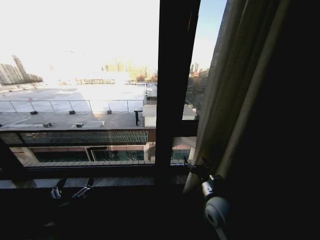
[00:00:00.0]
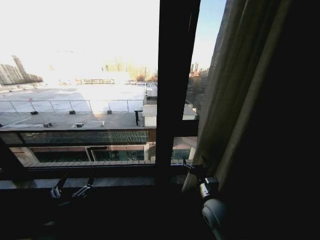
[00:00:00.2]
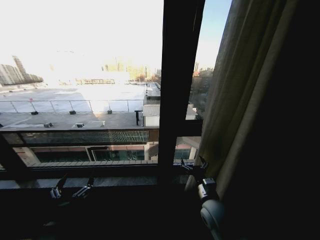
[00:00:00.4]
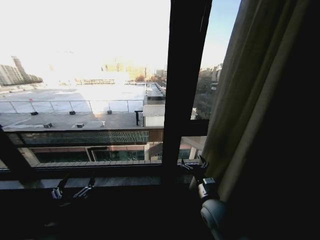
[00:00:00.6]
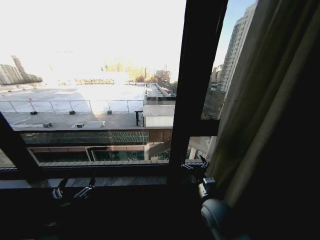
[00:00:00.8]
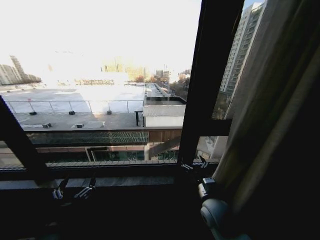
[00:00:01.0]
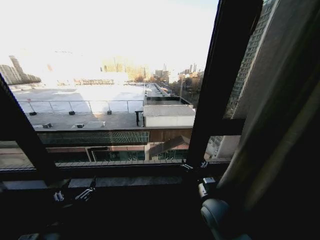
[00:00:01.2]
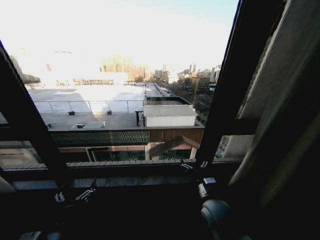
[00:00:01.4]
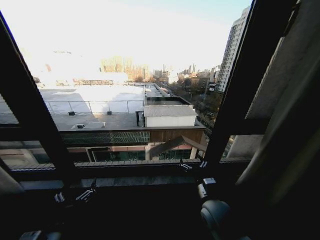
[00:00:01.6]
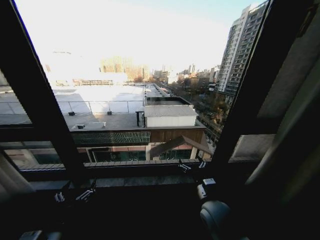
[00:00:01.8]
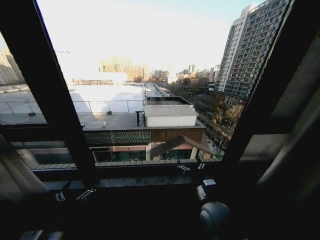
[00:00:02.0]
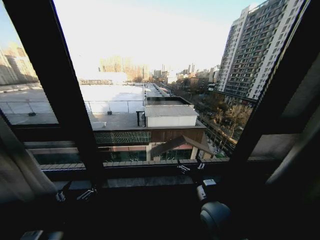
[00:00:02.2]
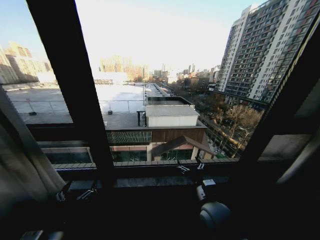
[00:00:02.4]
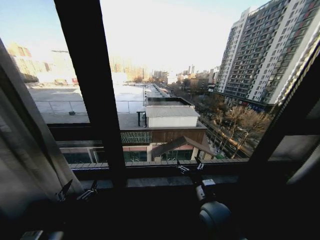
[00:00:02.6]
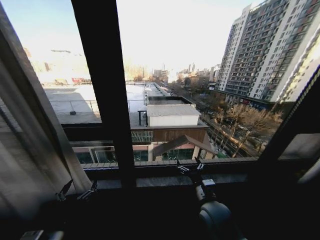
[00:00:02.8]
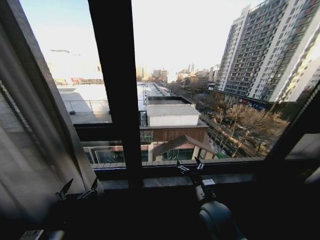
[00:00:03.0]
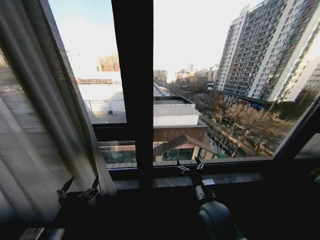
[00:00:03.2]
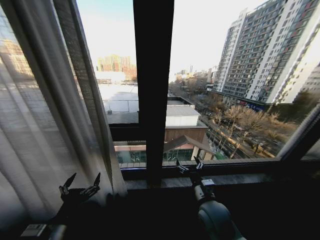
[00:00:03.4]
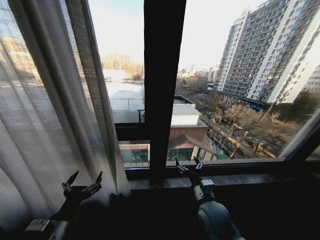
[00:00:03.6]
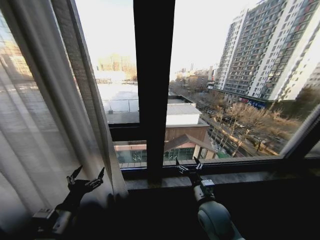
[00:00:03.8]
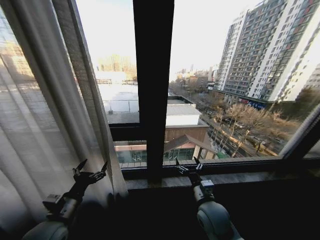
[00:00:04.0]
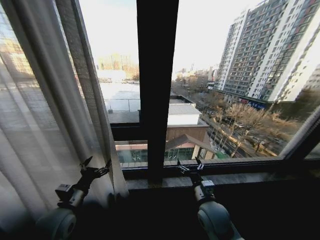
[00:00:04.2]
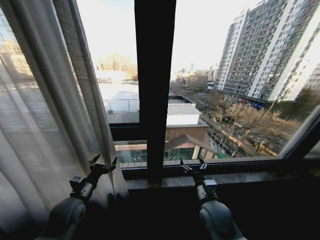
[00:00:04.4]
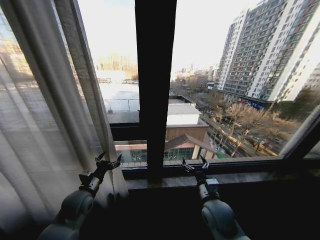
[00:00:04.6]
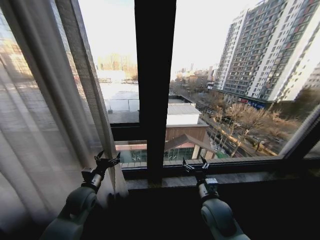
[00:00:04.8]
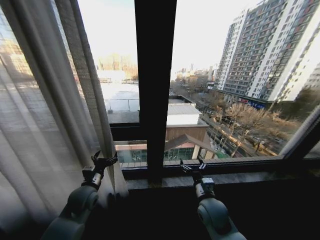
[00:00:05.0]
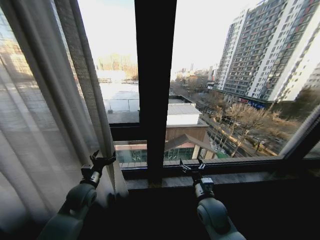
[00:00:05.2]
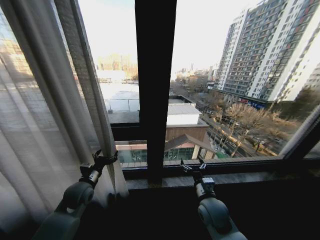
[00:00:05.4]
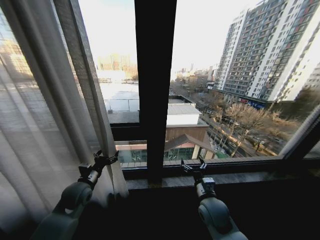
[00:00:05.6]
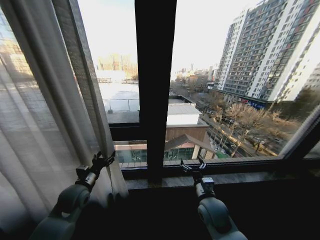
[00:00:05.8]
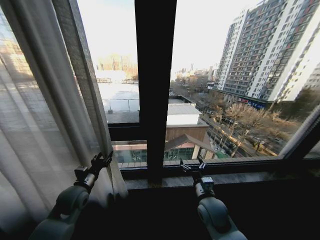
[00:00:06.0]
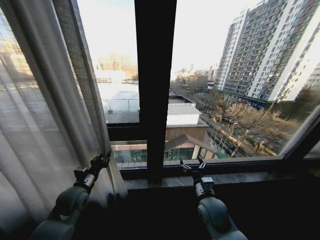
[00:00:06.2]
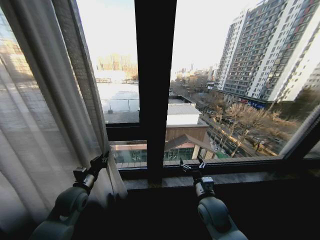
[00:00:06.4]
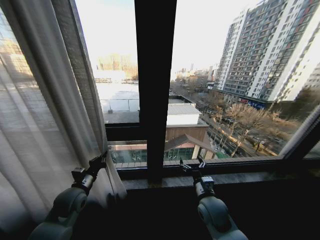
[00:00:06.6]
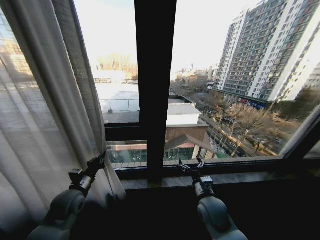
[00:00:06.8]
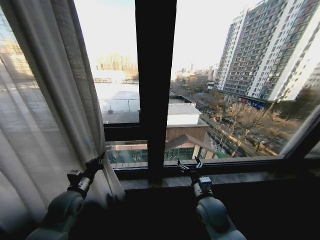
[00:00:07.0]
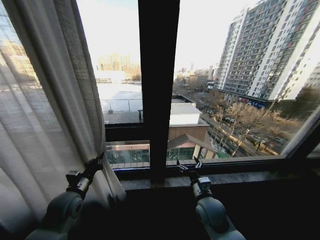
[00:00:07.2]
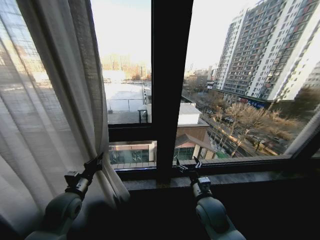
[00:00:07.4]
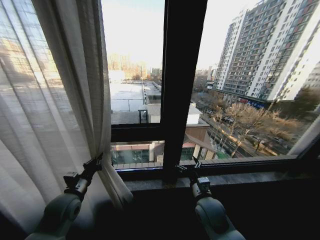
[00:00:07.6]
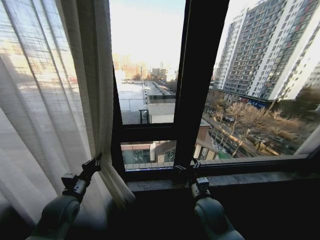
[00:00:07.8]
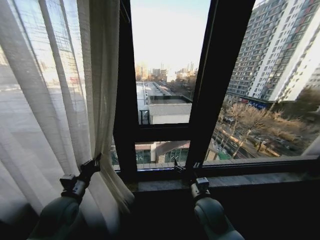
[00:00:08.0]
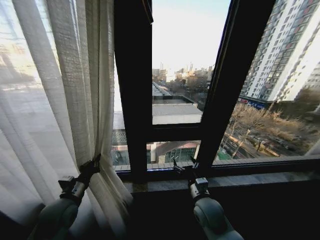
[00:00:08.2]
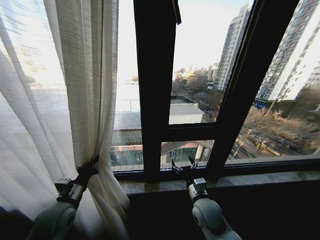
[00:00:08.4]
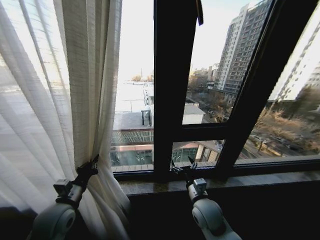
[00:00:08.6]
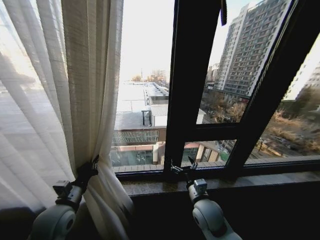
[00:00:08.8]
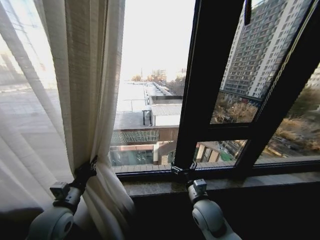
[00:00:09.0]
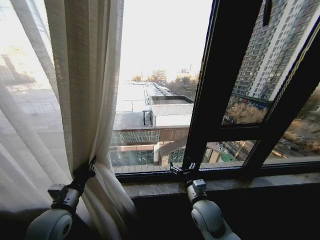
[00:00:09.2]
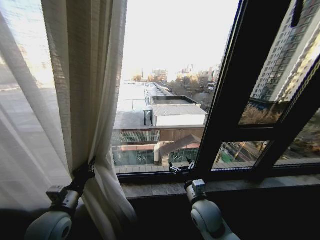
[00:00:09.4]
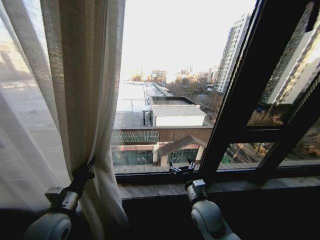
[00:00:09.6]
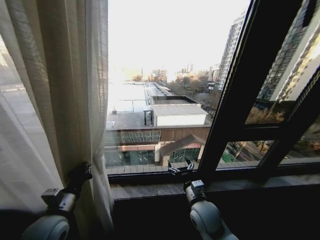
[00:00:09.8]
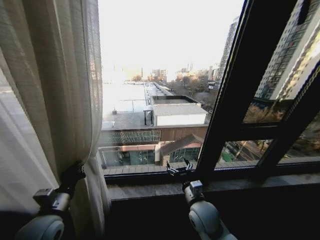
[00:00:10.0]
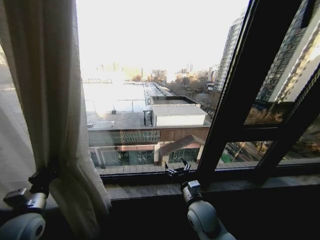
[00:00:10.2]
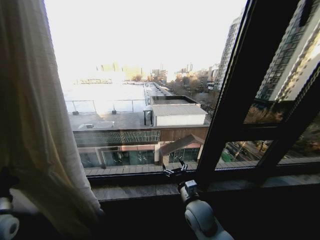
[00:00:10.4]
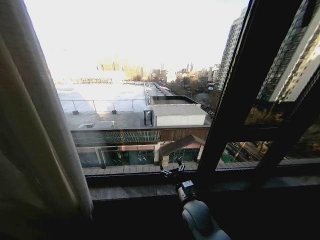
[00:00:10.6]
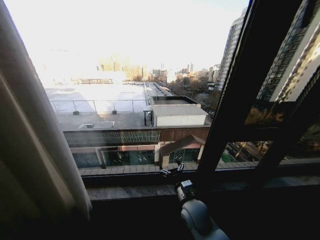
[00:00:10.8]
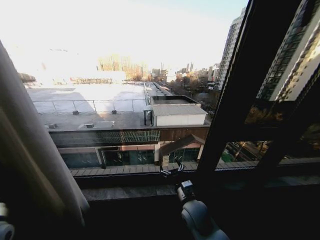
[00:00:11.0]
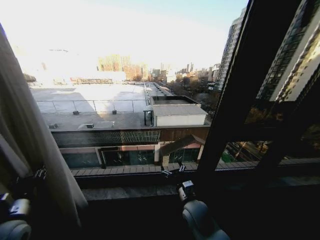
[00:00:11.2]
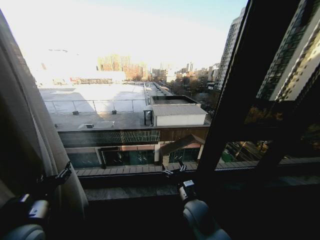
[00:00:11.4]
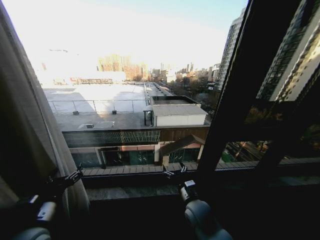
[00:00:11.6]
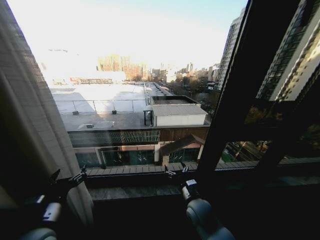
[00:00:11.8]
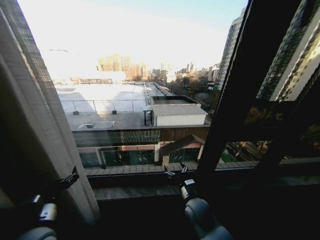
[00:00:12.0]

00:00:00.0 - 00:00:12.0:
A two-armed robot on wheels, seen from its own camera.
Task of the whole recording: Open the curtains by pulling them apart, changing their state from closed to fully open.
00:00:03.0 - 00:00:04.4: The left gripper is displaced forward by roughly 15 cm.
00:00:04.4 - 00:00:06.0: The left gripper closes its fingers.
00:00:06.0 - 00:00:07.6: The left gripper closes its fingers.
00:00:07.6 - 00:00:09.0: The left gripper changes place by some 5 cm.
00:00:09.0 - 00:00:10.4: The left gripper moves to the left, approximately 15 cm.
00:00:10.4 - 00:00:12.0: The left gripper heads to the right, covering some 15 cm, and opens.

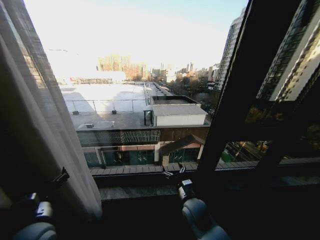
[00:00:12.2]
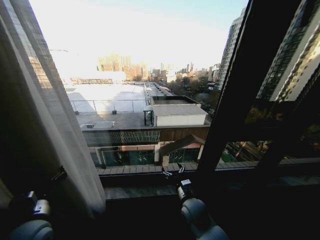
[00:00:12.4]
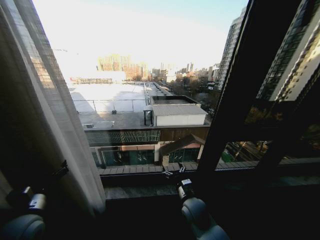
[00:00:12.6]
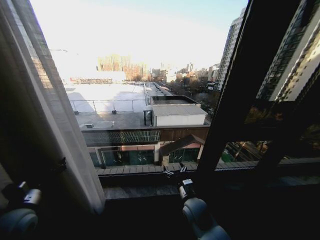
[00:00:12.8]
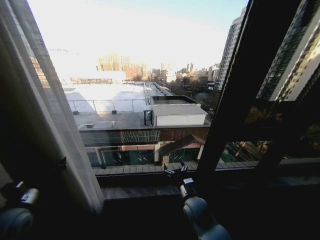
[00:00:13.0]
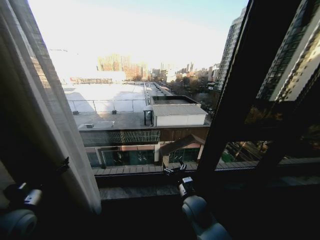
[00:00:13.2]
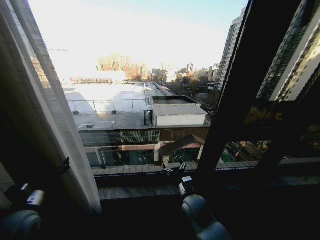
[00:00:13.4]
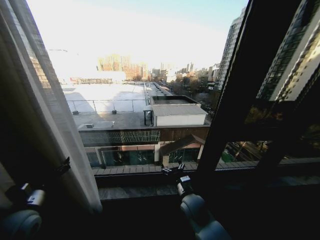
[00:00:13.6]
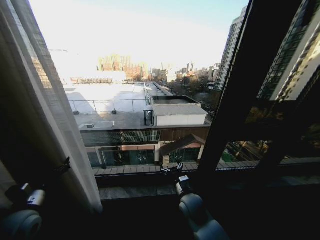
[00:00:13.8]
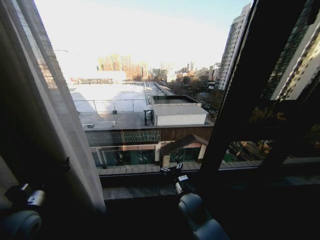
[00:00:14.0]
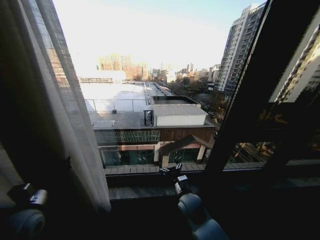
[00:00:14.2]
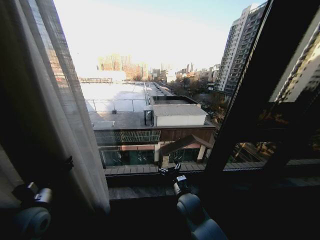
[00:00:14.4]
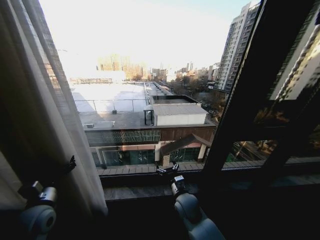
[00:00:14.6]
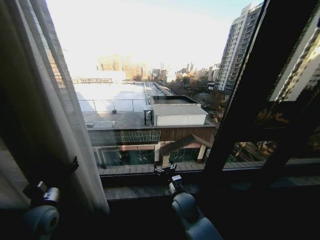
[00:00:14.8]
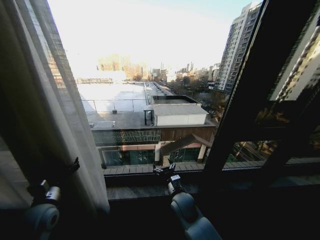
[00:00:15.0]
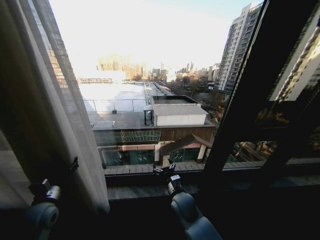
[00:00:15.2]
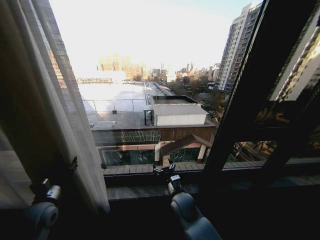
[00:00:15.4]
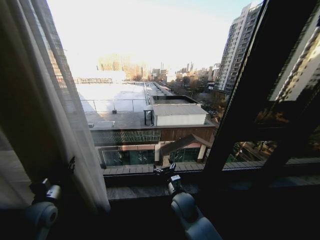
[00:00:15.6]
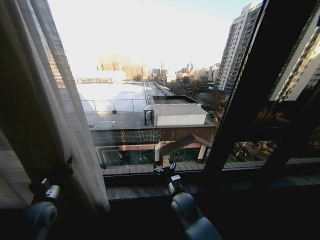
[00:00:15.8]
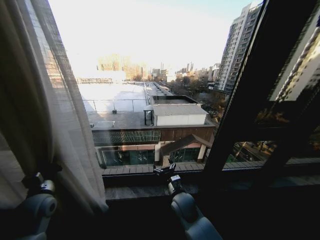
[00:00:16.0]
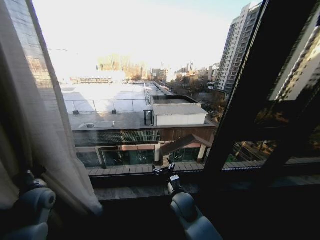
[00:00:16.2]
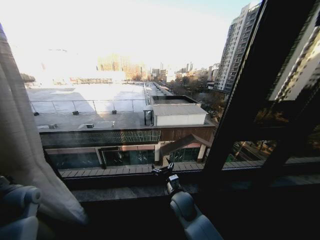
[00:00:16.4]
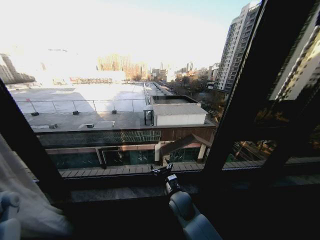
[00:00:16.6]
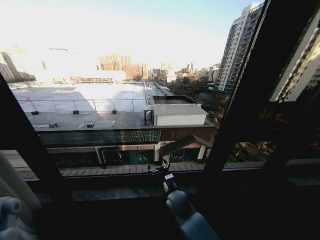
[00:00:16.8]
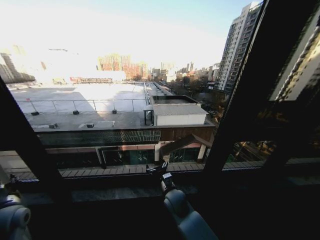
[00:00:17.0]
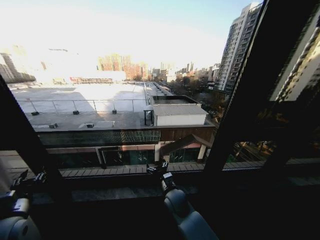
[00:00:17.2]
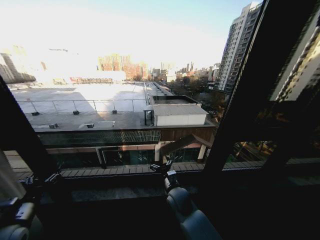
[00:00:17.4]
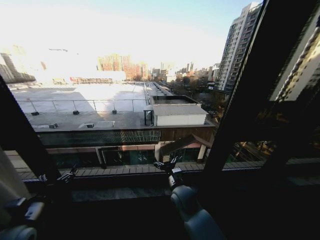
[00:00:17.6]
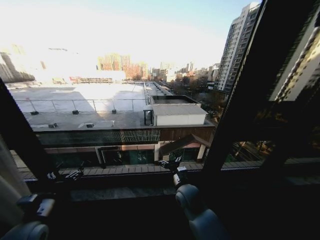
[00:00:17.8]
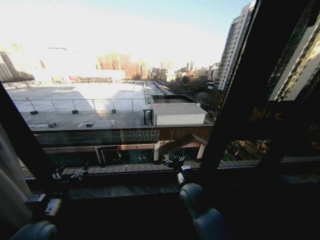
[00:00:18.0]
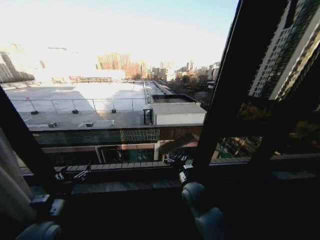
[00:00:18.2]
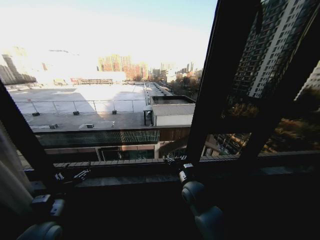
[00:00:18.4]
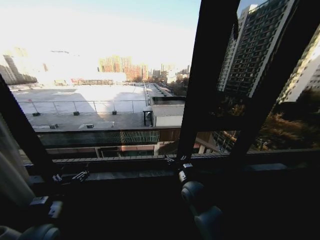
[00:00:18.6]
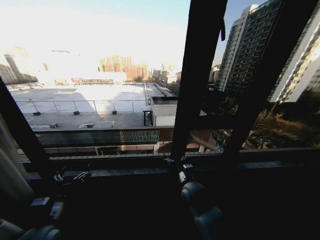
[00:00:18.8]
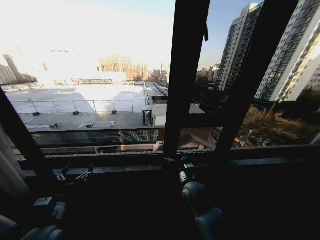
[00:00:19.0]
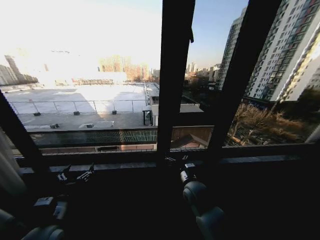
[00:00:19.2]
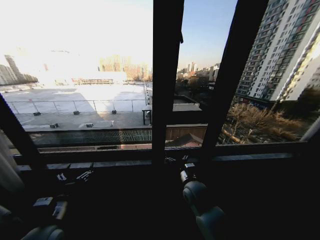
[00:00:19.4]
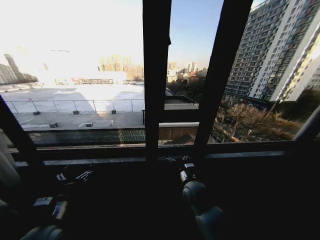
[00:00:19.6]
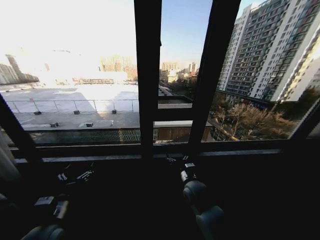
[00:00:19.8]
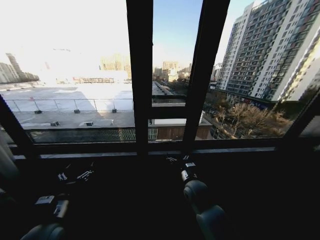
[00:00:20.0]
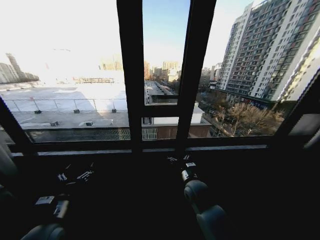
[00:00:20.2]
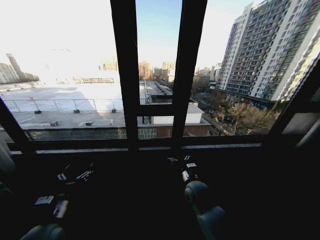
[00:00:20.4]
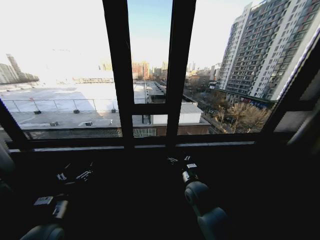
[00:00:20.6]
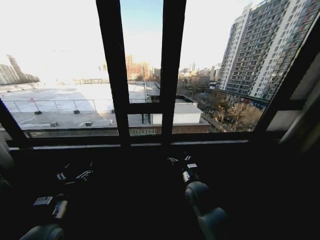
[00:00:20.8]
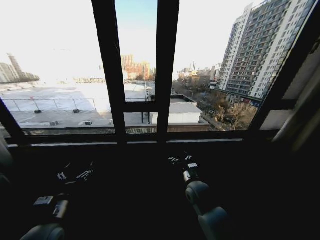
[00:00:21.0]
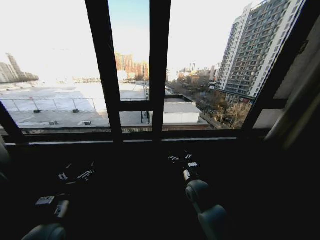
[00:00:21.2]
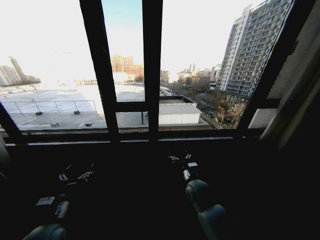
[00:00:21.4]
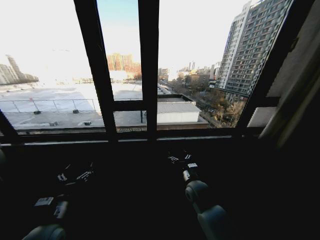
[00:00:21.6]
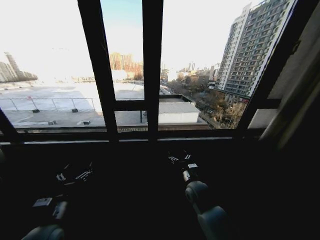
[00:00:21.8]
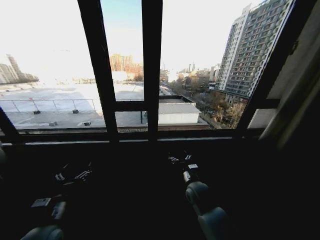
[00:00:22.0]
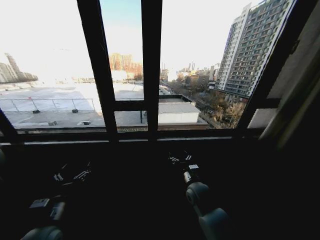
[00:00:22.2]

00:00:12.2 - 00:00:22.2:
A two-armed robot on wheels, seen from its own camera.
Task of the whole recording: Open the curtains by pulling them apart, changing their state from closed to fully open.
00:00:12.2 - 00:00:13.6: The left gripper goes approximately 10 cm to the left.
00:00:13.6 - 00:00:15.0: There are only small adjustments of the grippers.
00:00:15.0 - 00:00:16.4: The left gripper goes roughly 10 cm to the left and forward, and closes up.
00:00:16.4 - 00:00:18.0: The left gripper shifts roughly 15 cm to the right and backward, and opens its fingers. The right gripper ends up some 5 cm from where it was.
